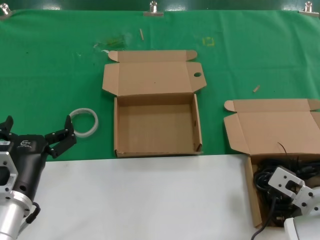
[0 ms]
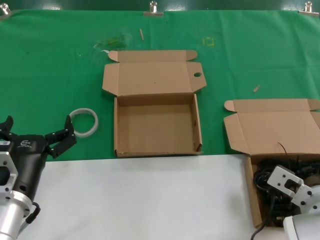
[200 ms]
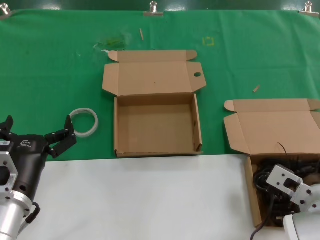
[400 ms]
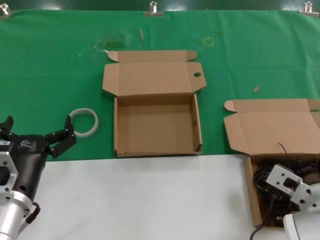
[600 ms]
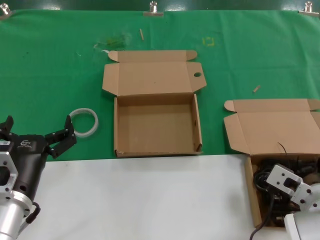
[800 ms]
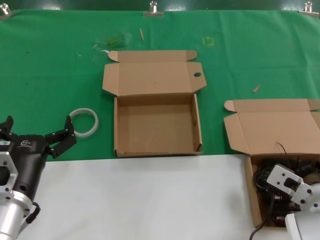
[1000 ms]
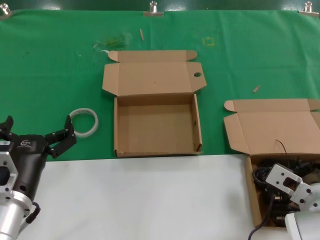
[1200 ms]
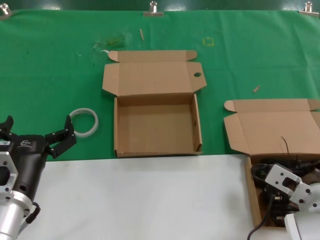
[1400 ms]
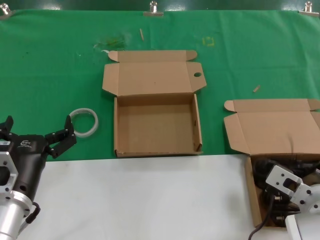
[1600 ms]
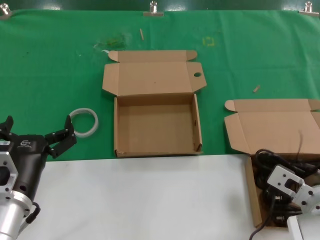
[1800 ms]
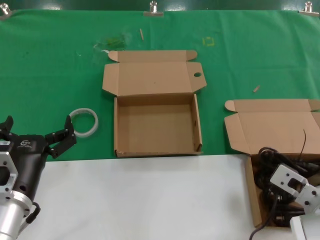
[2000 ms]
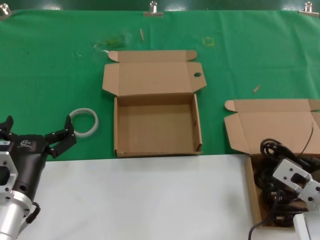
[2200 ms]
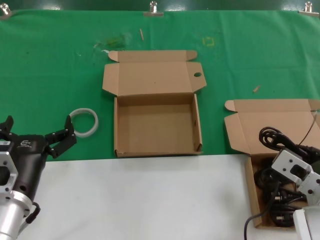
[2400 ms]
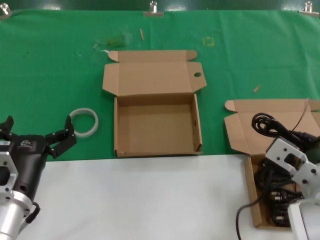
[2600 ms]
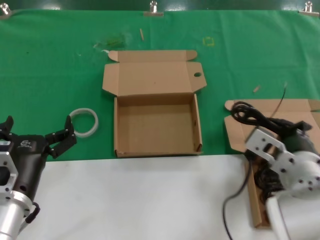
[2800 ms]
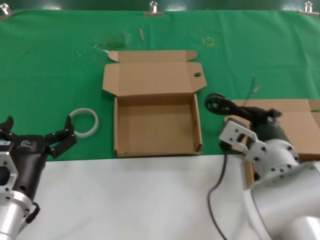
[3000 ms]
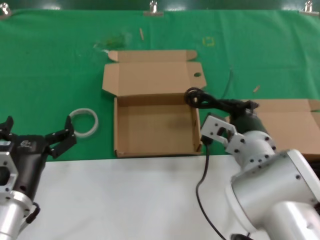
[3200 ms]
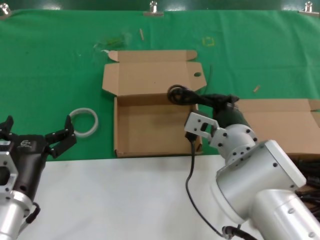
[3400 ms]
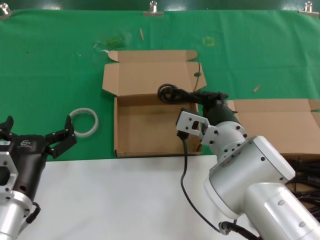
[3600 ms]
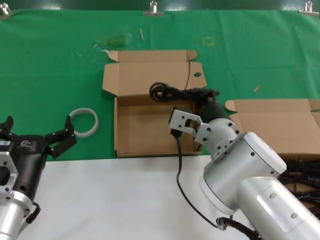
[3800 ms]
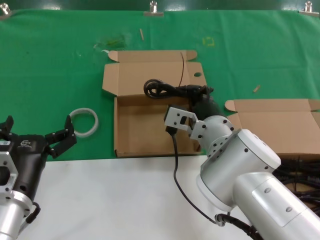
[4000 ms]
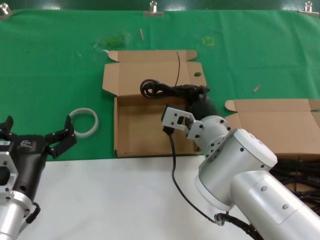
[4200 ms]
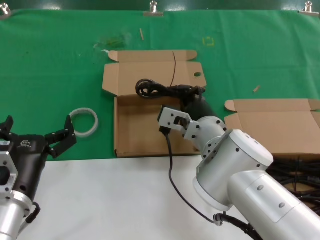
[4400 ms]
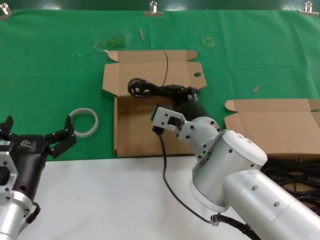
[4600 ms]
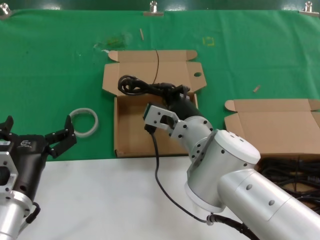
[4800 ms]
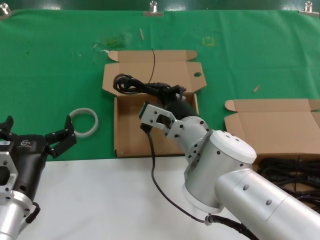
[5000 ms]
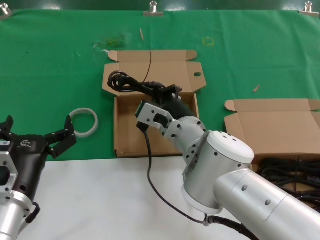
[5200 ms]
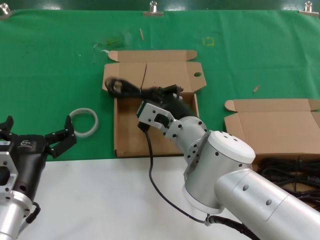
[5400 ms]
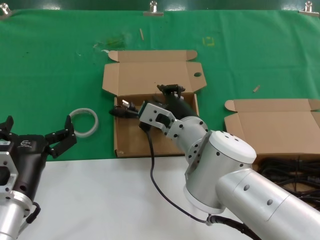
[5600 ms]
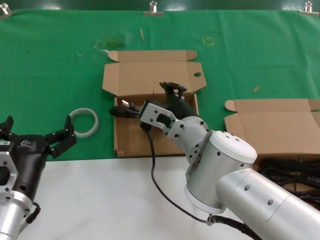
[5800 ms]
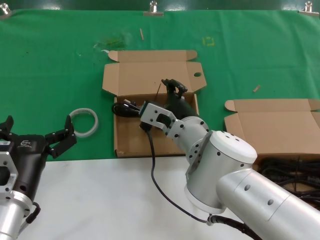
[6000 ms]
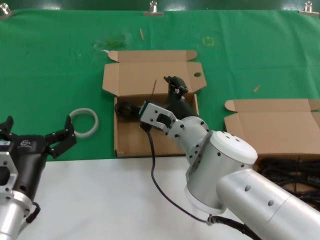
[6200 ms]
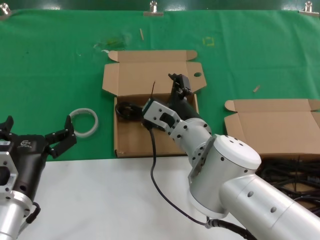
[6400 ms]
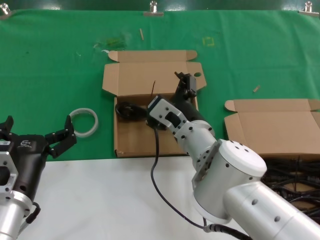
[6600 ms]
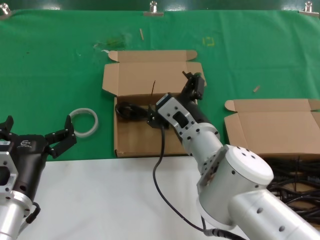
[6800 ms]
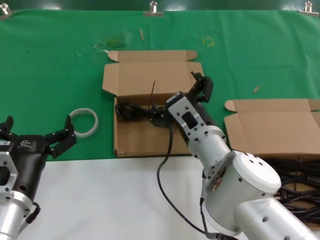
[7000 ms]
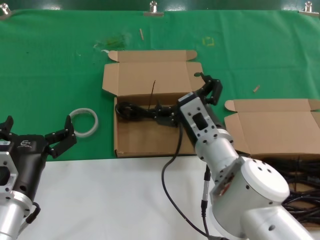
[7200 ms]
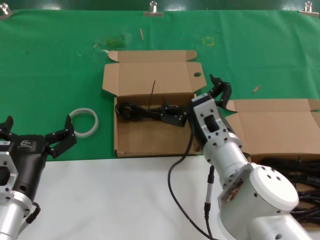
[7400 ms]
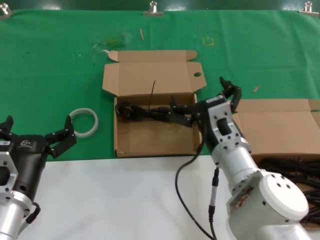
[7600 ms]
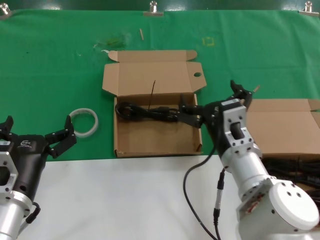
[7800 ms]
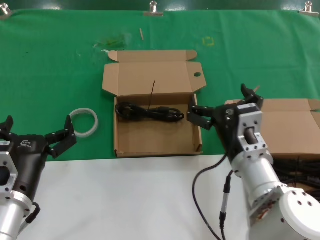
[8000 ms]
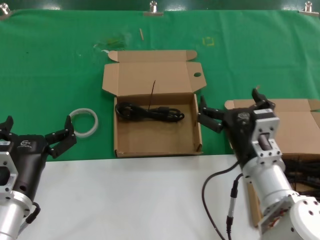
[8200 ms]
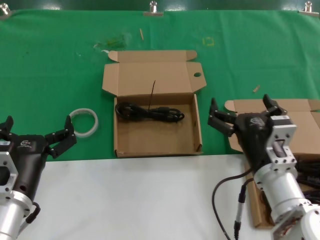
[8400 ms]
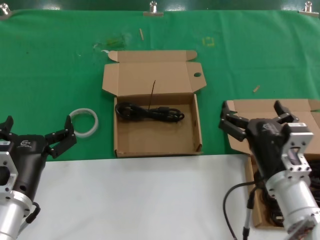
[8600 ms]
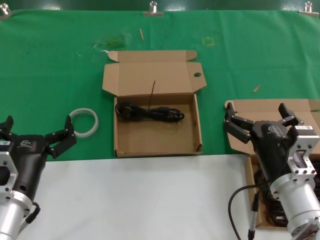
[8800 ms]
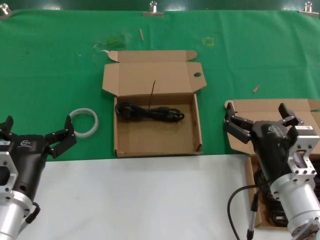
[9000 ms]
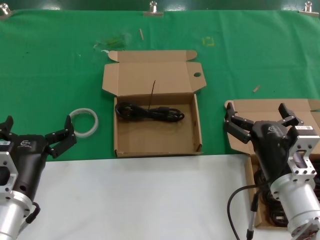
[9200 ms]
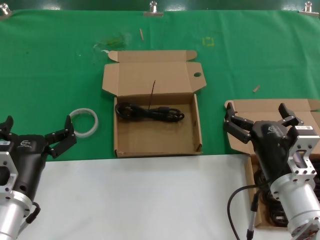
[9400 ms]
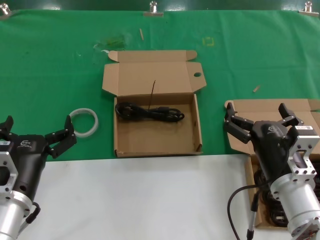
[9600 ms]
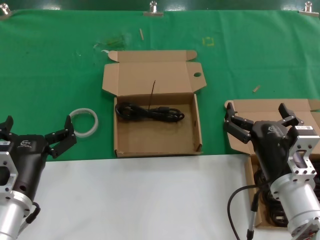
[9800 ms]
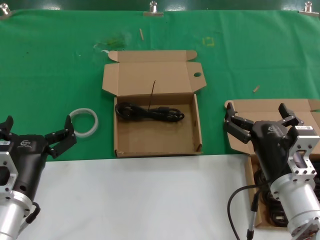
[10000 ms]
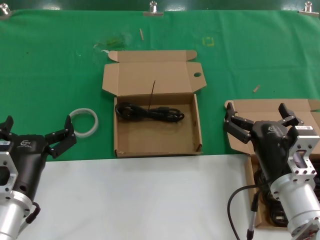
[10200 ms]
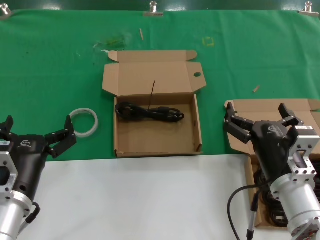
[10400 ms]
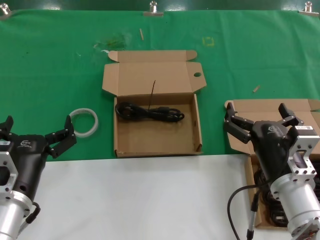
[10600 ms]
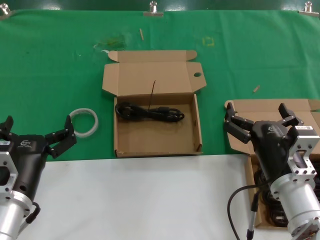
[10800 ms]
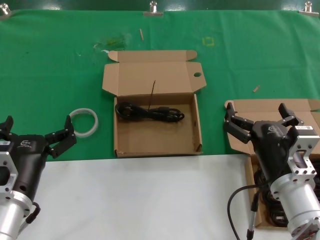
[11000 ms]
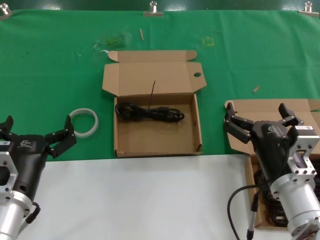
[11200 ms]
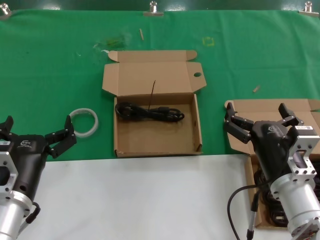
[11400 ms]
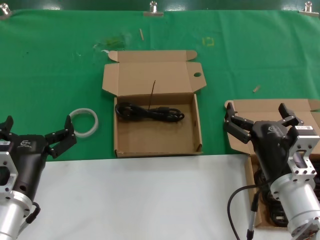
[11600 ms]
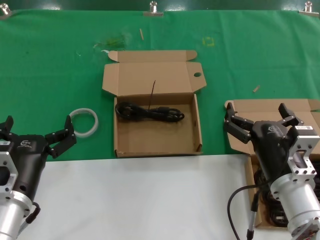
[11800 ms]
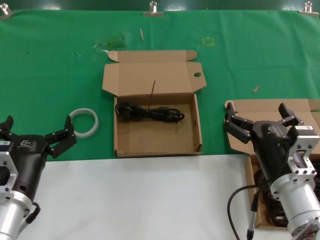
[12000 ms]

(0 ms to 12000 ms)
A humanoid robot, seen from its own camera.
Task of the whole recording: take the parts from the box containing them and put them into an empty box.
Step, 2000 ms - 5600 ms: Place the data cable in the another box.
0 ms - 1600 ms: Both hands stay about where they are.
1600 ms - 3000 ms: The right hand shifts some 10 cm to the left and upward.
3000 ms - 4400 ms: The right hand shifts roughly 10 cm forward and to the left.
4400 ms - 6000 ms: The hands stay close to where they were, moving slightly.
6000 ms - 7600 ms: The right hand travels to the right and backward by about 10 cm.
7600 ms - 9000 ms: The right hand heads to the right and backward, covering approximately 10 cm.
9000 ms - 12000 ms: Both hands stay about where they are.

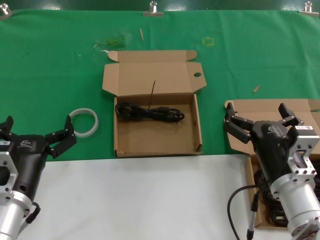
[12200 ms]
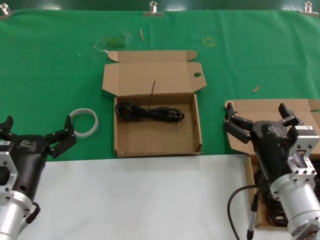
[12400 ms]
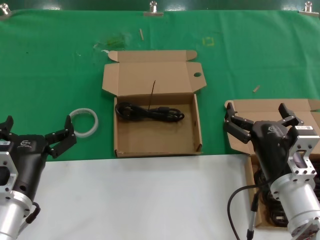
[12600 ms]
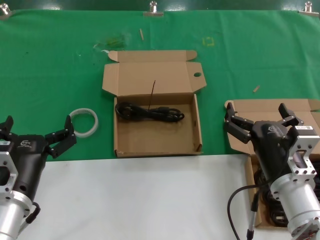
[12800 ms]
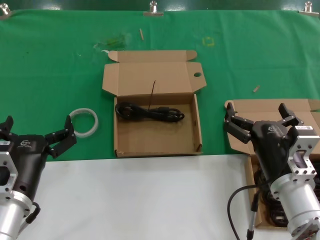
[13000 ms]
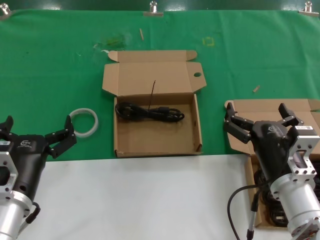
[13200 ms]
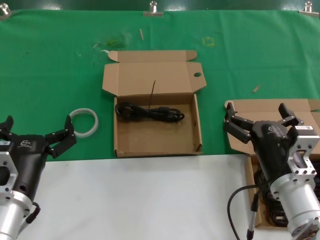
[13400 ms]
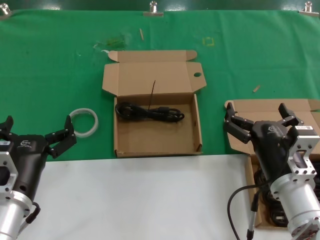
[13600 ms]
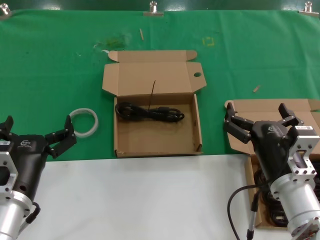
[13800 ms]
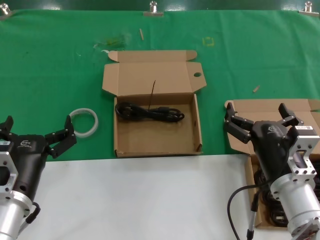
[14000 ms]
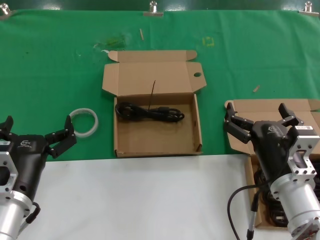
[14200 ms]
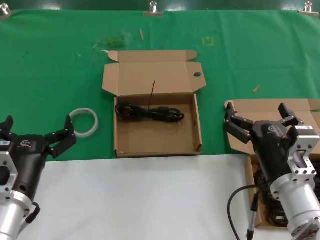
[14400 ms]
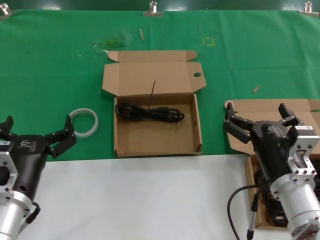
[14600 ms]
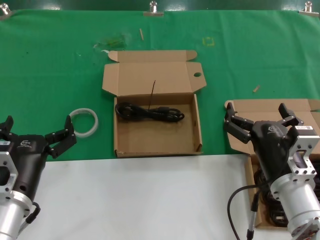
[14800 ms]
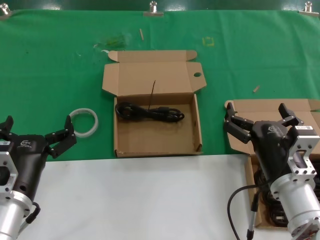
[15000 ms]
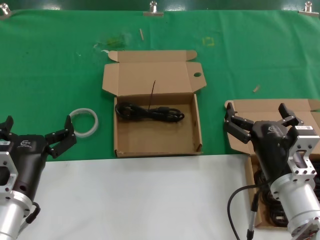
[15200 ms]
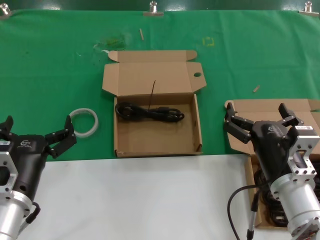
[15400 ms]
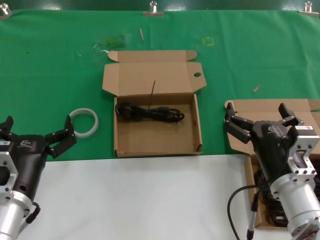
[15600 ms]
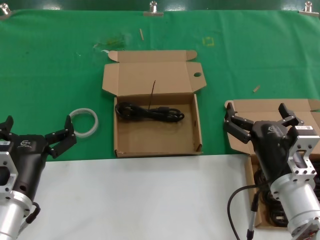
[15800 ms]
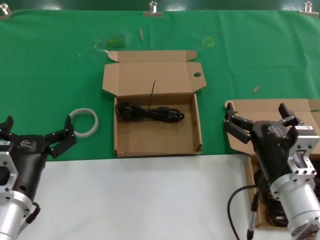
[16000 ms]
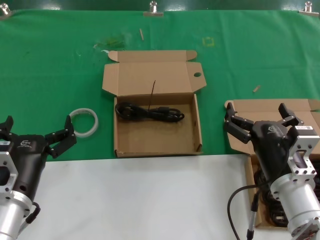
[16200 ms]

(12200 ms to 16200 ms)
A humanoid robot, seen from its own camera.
Task of the whole recording: take the parts from the box containing them and put them into an empty box.
12200 ms - 16200 ms: Both hands stay put.

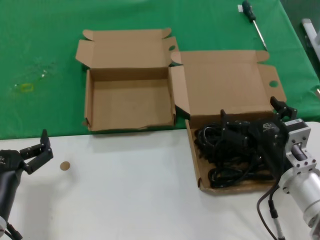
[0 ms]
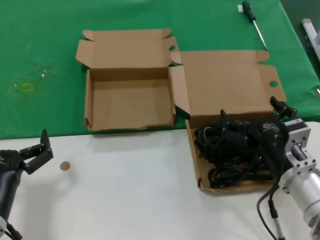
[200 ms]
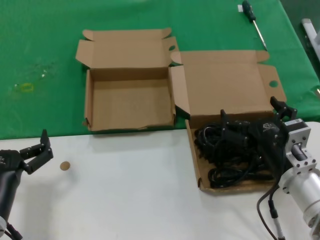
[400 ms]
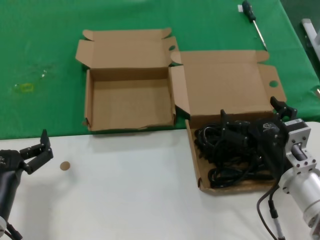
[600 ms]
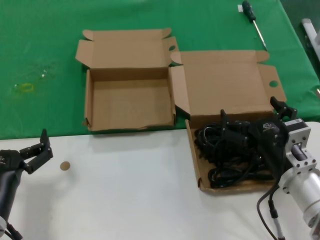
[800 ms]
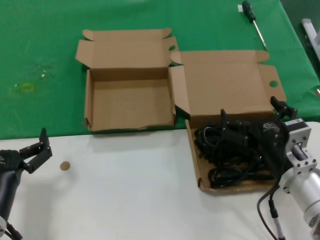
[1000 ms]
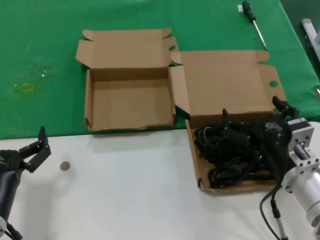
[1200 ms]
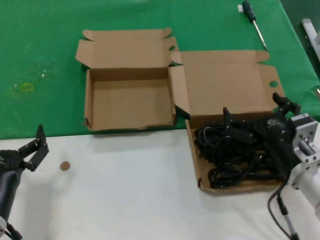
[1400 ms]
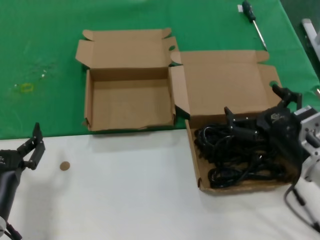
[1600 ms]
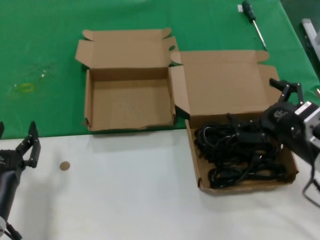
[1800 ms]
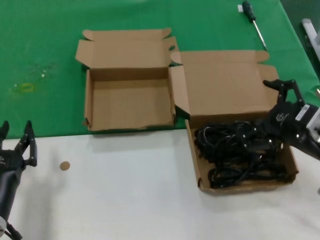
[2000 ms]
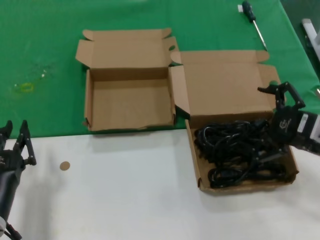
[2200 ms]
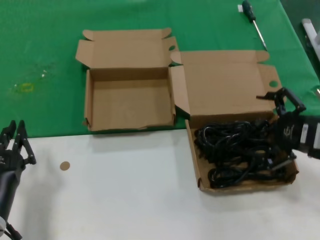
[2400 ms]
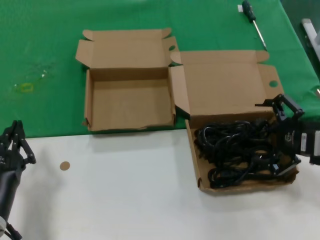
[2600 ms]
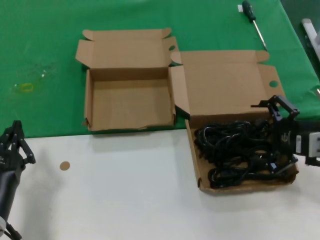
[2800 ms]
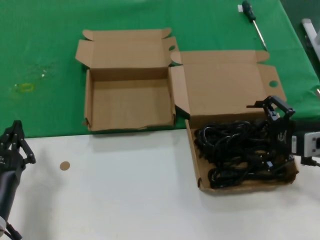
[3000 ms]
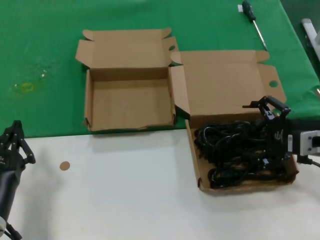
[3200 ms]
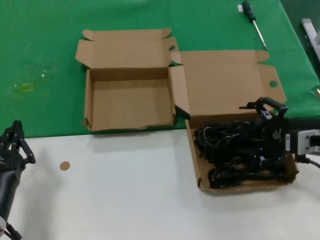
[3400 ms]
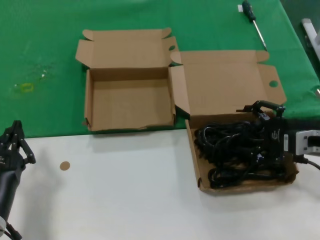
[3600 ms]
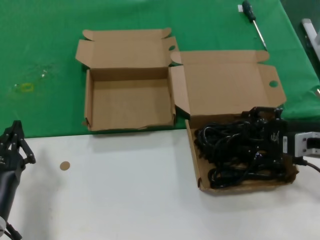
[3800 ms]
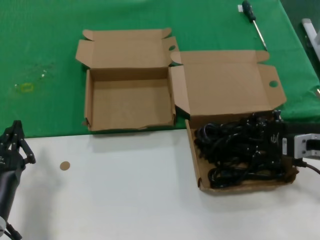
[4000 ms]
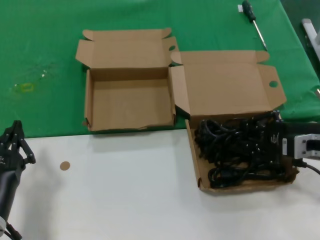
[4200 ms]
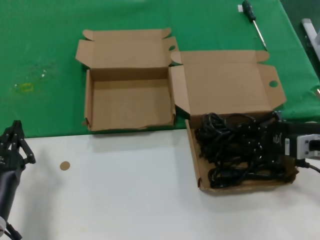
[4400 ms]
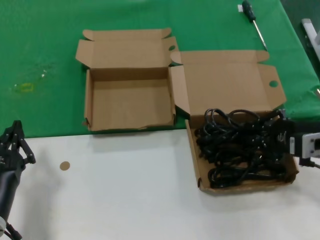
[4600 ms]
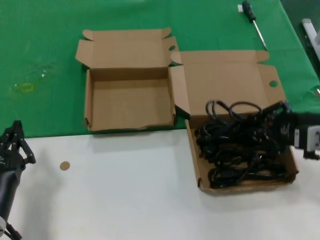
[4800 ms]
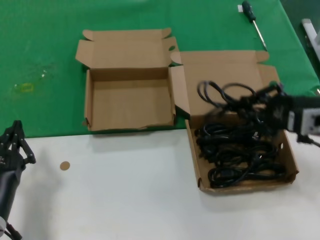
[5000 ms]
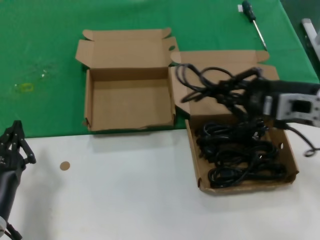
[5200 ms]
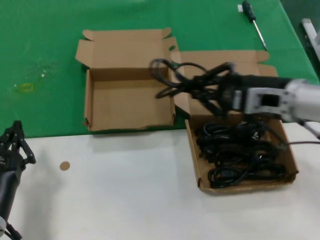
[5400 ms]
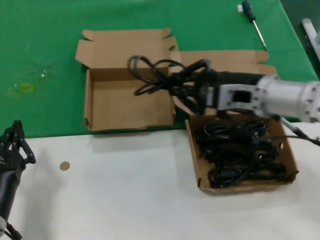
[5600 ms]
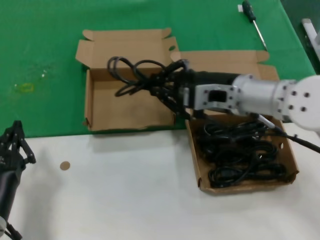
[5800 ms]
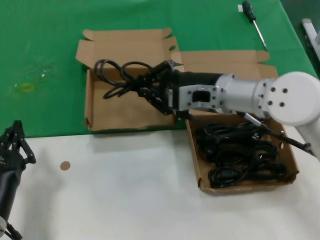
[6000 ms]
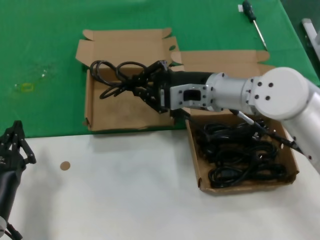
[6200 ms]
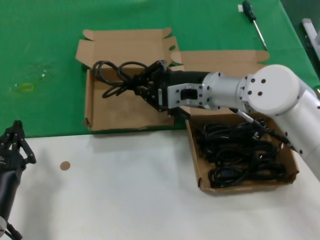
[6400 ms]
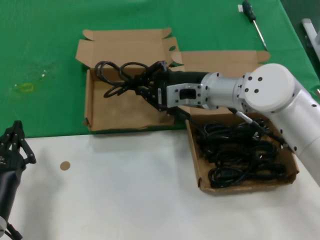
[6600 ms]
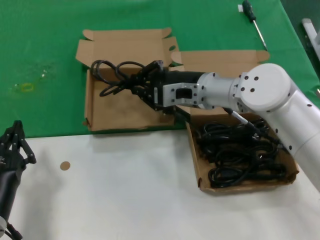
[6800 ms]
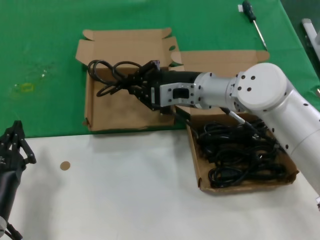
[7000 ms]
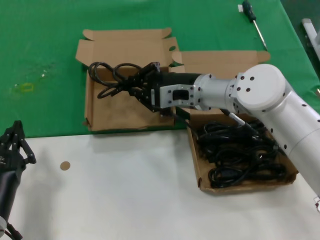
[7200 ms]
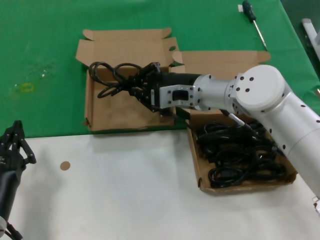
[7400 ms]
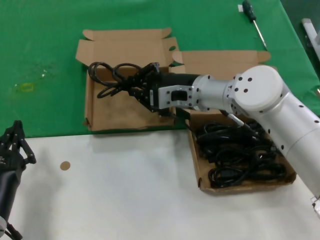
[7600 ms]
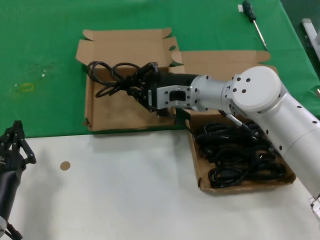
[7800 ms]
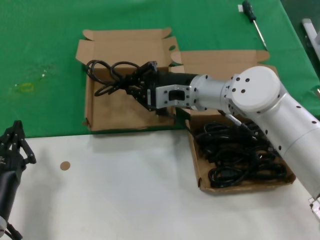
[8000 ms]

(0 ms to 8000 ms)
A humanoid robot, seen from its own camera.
Task of the whole recording: take the parts from the box containing them and put them into an empty box.
Step, 0 ms - 4200 ms: Grasp the data cable.
0 ms - 1600 ms: There are only small adjustments of the hands.
1600 ms - 3200 ms: The right hand heads to the right, upward and forward, covering about 10 cm.
3200 ms - 4800 ms: The hands move only a little.
4800 ms - 6400 ms: The right hand moves to the left and forward, some 25 cm.
6400 ms - 8000 ms: The hands stay close to where they were, moving slightly.
